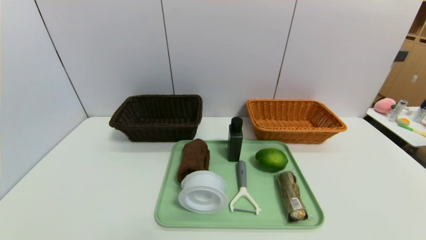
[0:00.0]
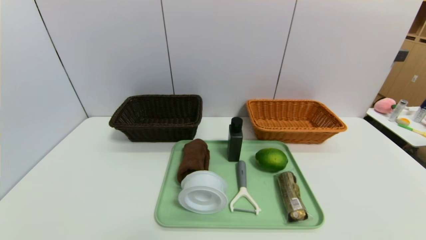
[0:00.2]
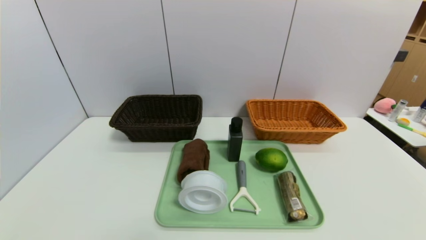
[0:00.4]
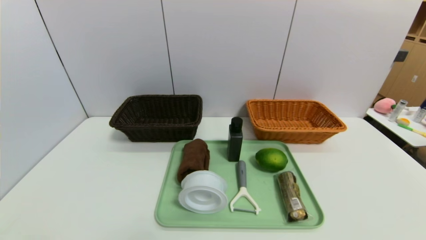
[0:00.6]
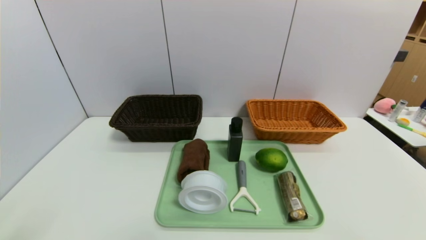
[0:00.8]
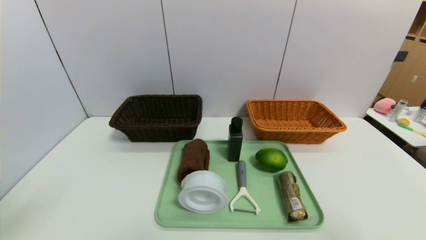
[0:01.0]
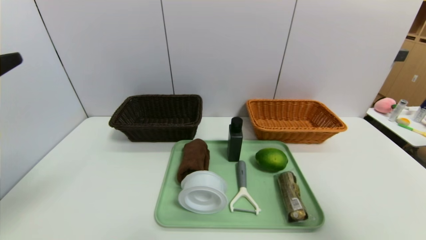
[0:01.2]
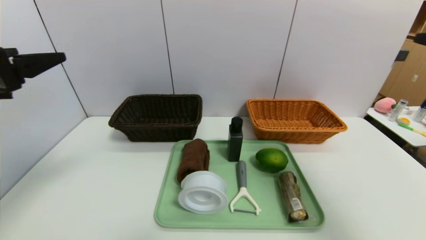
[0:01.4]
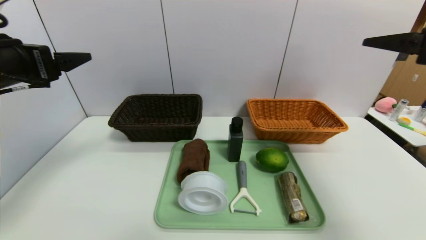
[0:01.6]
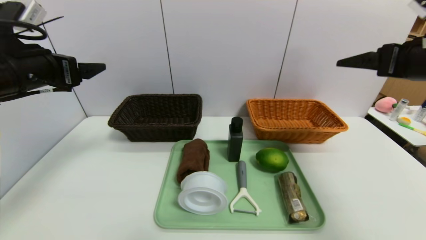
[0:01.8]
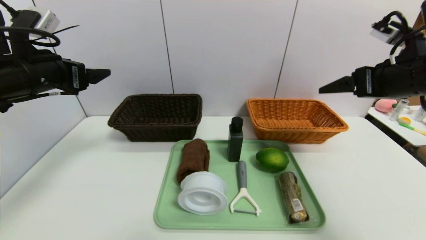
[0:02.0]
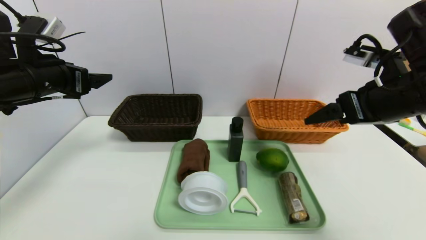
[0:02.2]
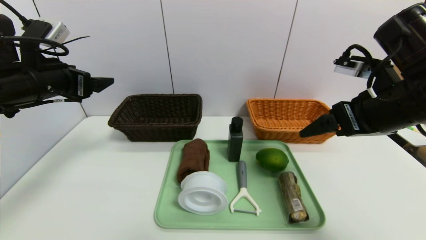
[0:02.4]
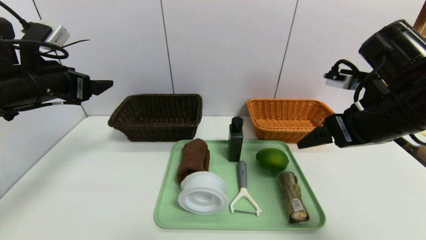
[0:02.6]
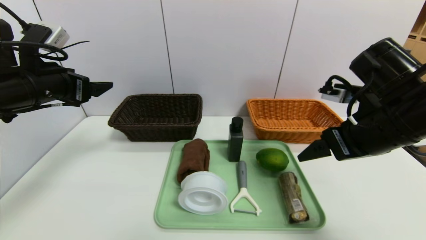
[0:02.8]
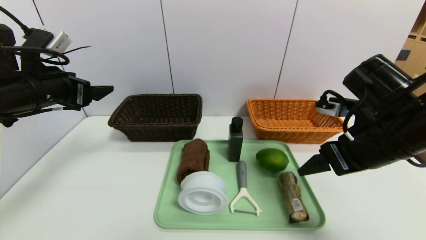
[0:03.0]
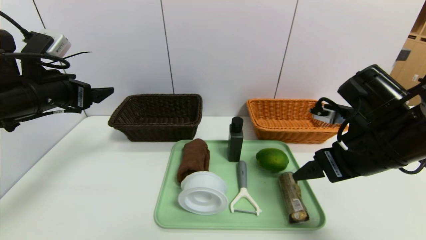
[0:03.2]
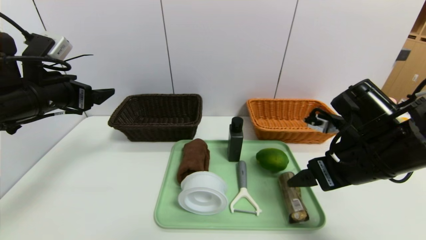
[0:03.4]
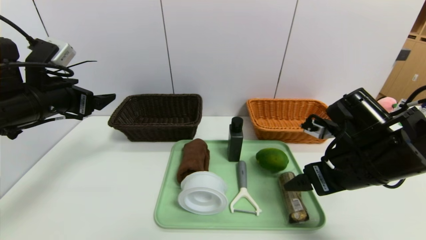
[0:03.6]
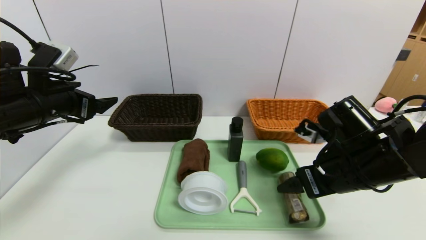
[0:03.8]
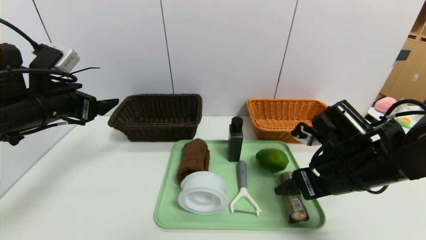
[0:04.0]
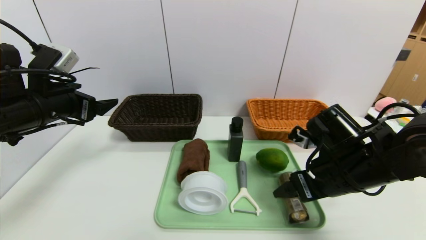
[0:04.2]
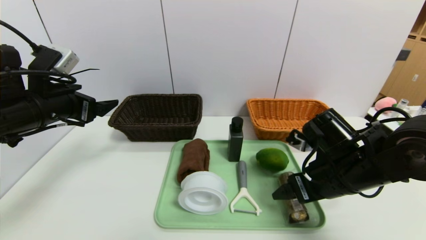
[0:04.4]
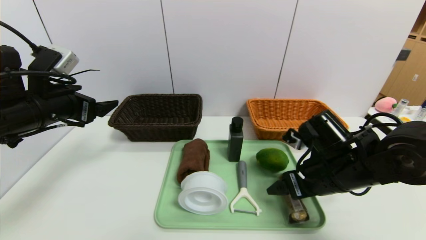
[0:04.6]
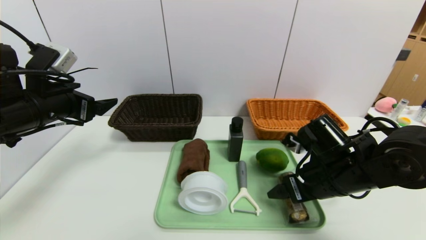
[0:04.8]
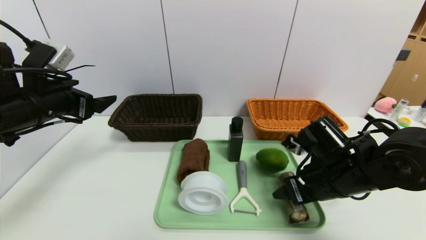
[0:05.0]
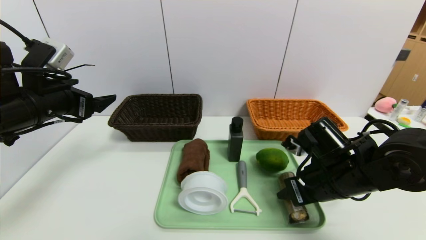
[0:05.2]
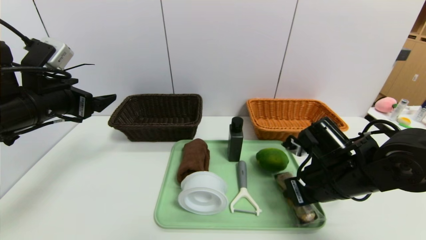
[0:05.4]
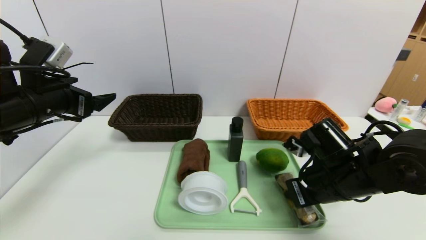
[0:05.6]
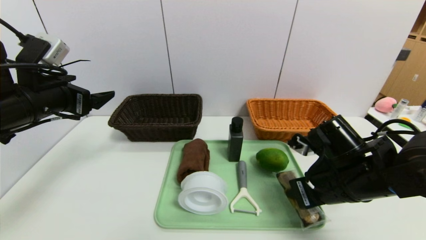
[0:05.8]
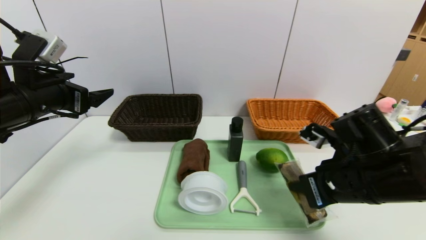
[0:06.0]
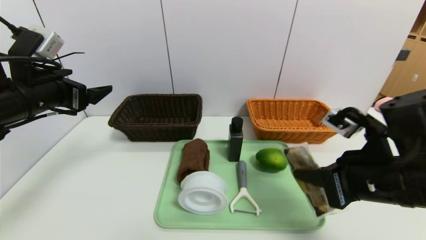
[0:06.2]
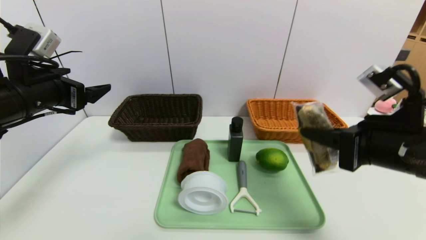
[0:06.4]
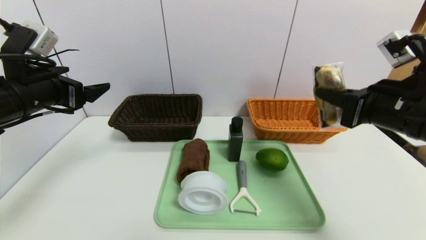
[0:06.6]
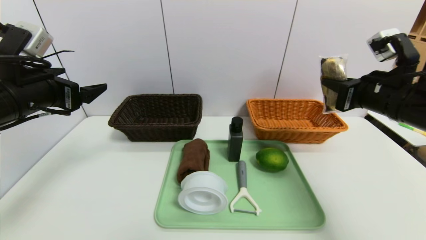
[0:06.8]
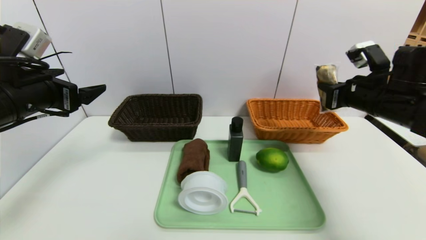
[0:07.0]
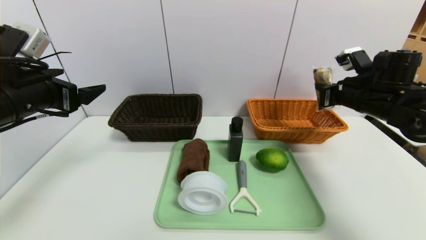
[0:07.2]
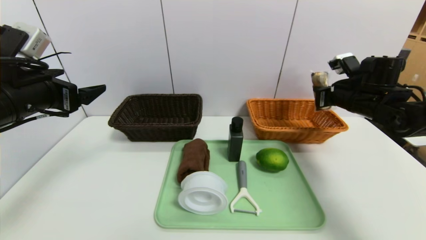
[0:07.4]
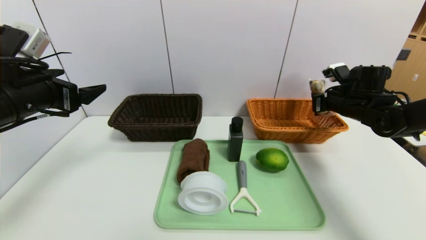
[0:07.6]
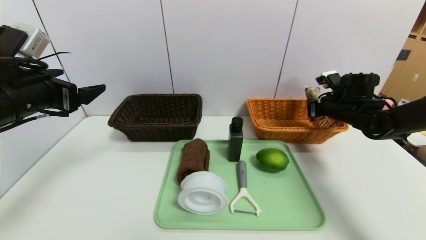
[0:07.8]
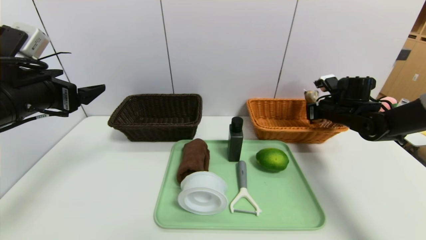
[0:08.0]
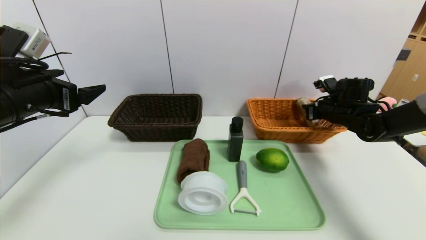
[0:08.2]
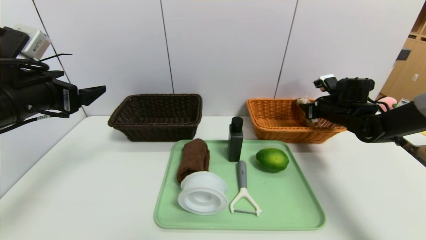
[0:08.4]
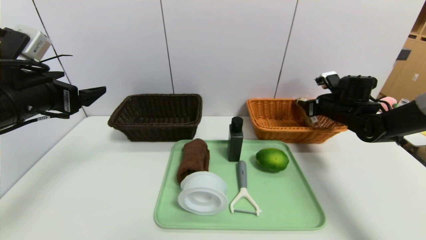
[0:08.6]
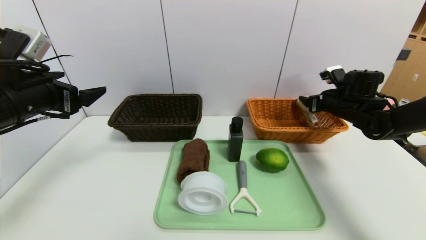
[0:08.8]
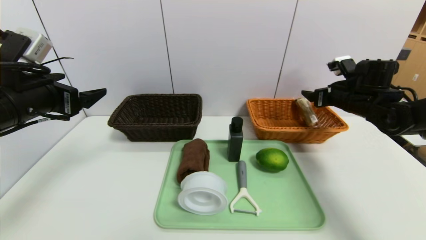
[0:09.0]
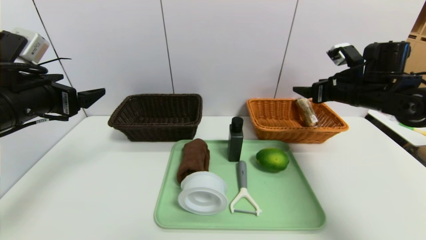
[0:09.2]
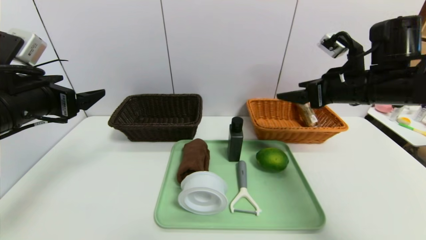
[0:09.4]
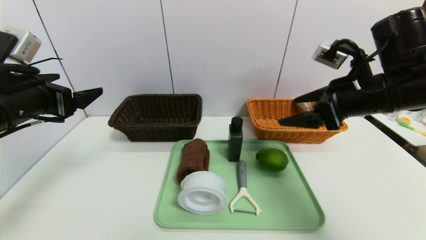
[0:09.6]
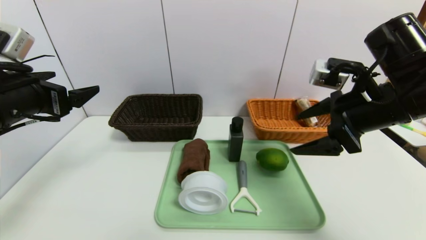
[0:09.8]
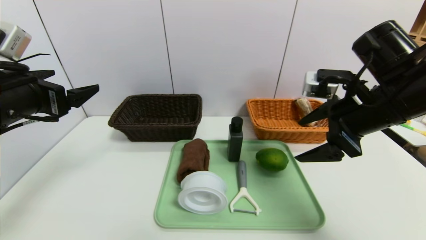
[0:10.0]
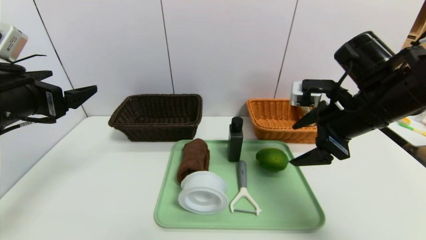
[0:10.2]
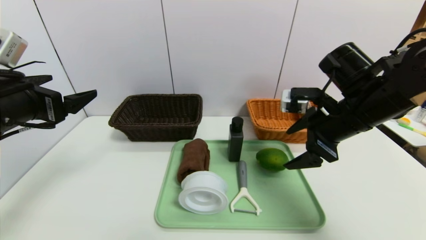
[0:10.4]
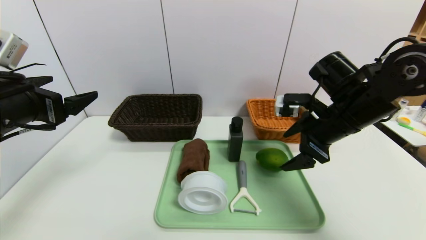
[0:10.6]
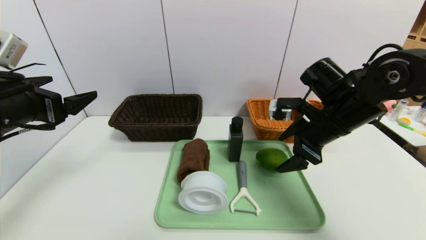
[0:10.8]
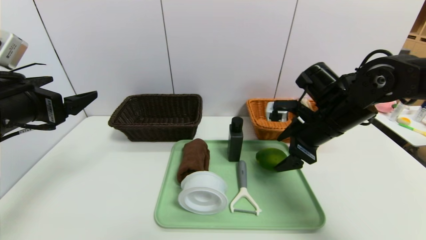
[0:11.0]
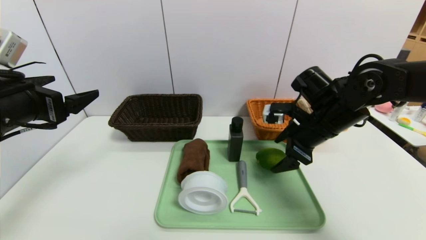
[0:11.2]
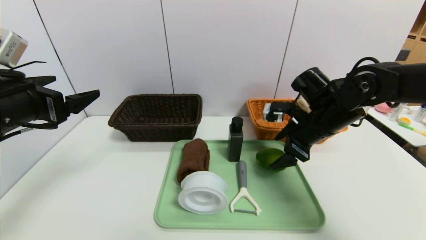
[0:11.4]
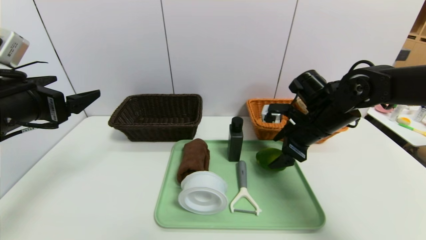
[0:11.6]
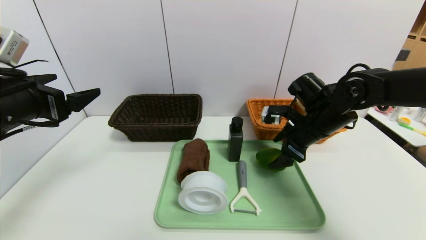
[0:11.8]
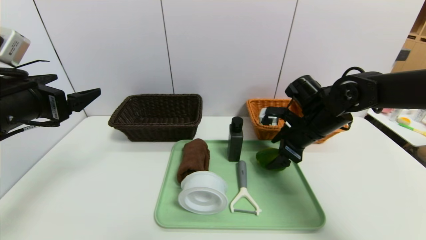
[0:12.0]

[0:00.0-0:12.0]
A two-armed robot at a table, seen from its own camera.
Task of the whole recording: place the food in the right basket with the right gripper, and place the non food items in the left basket with the left gripper.
Step, 0:00.0 to 0:08.2: Grasp the chocolate and put it in the right basket.
0:00.0 to 0:01.6: Both grippers move upward and forward, roughly 35 cm.
0:01.6 to 0:03.0: The right gripper goes roughly 15 cm downward and to the left, while the left gripper travels forward by some 5 cm.
0:03.0 to 0:04.4: The right gripper moves downward, some 10 cm.
0:04.4 to 0:06.0: The right gripper moves some 5 cm, and closes.
0:06.0 to 0:07.6: The right gripper travels forward and to the right by about 25 cm.
0:07.6 to 0:09.0: The right gripper opens.
0:09.0 to 0:10.4: The right gripper travels backward and to the left by approximately 15 cm.
0:10.4 to 0:12.0: The right gripper is displaced downward and forward by roughly 10 cm.

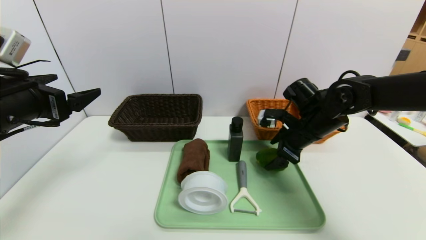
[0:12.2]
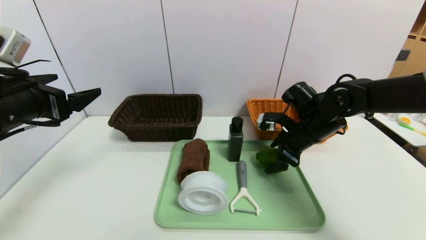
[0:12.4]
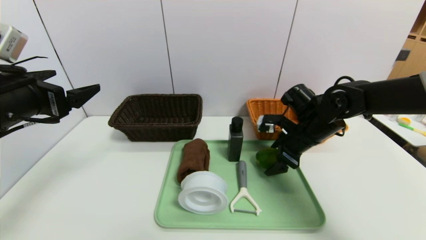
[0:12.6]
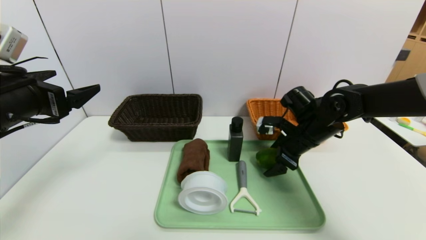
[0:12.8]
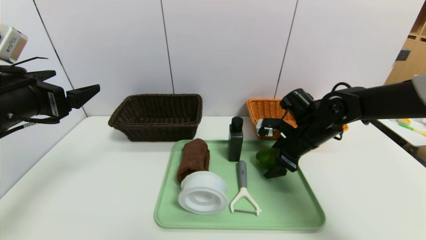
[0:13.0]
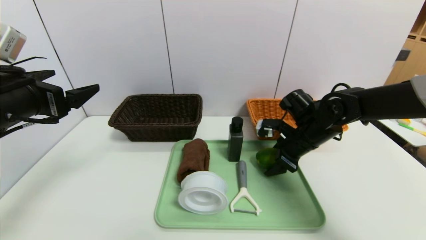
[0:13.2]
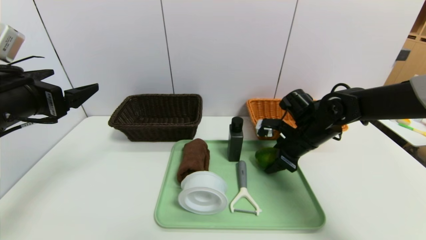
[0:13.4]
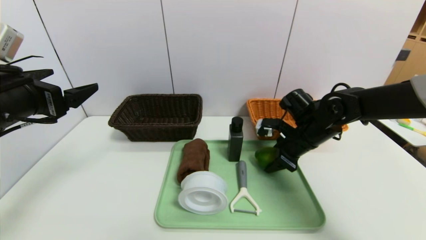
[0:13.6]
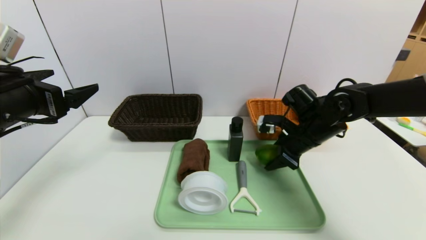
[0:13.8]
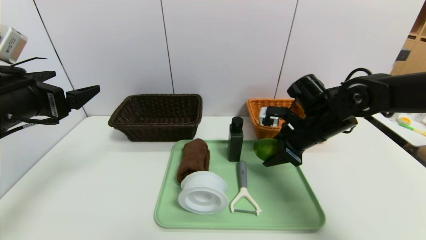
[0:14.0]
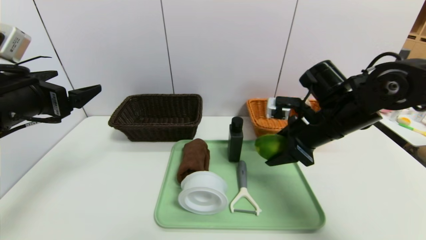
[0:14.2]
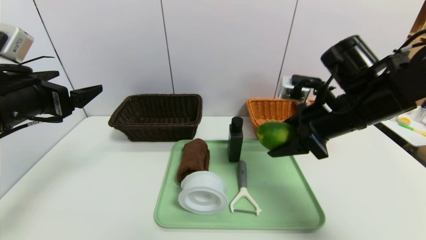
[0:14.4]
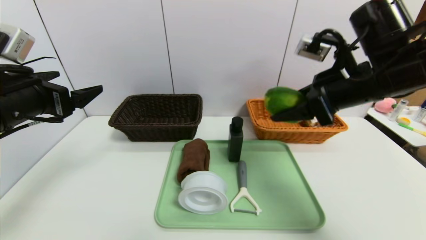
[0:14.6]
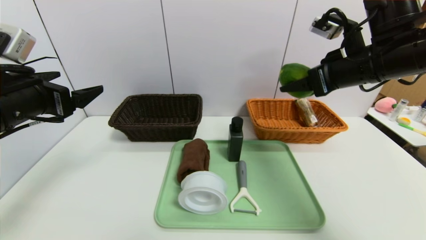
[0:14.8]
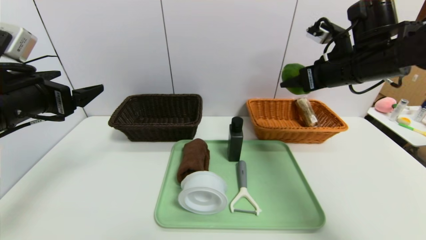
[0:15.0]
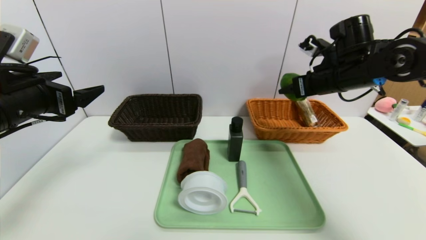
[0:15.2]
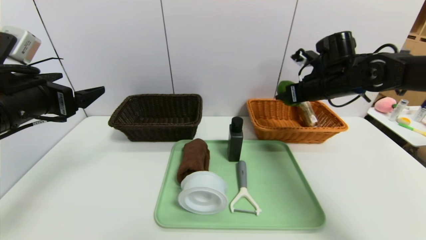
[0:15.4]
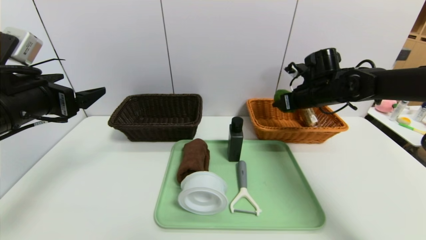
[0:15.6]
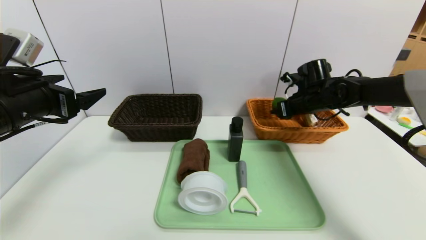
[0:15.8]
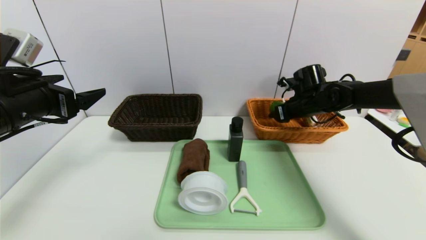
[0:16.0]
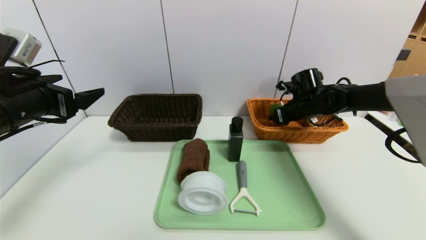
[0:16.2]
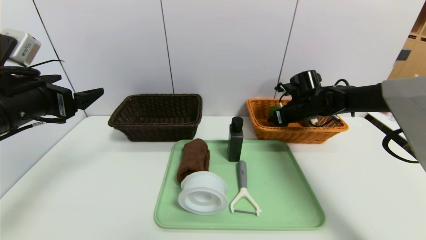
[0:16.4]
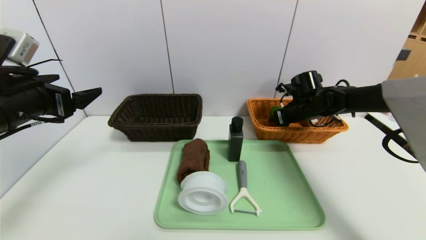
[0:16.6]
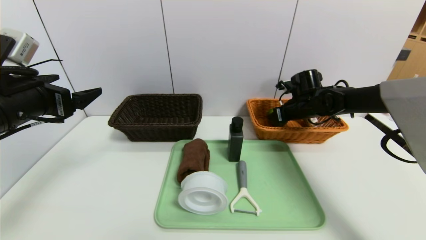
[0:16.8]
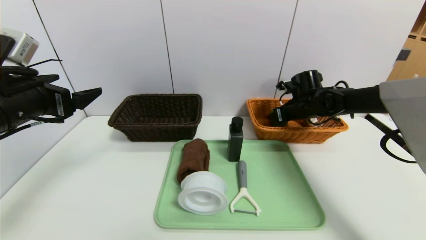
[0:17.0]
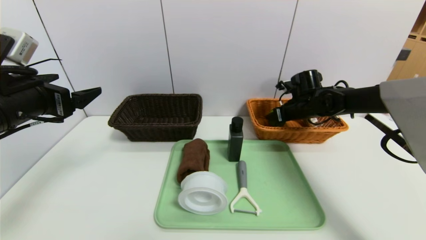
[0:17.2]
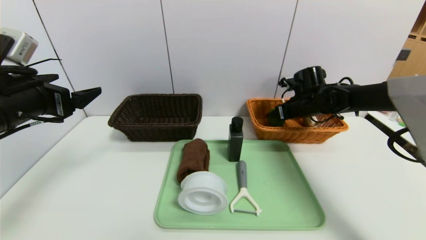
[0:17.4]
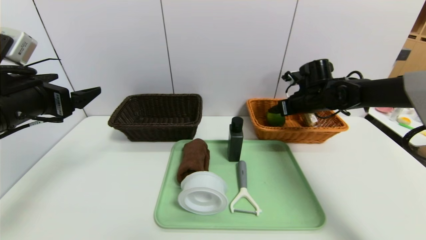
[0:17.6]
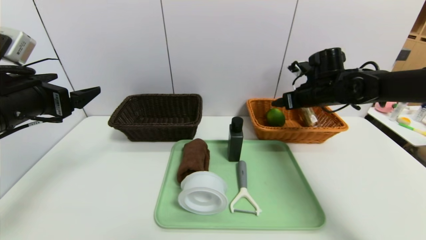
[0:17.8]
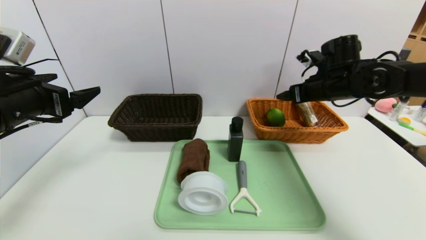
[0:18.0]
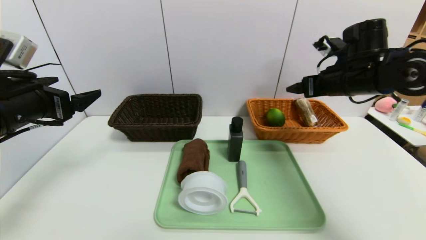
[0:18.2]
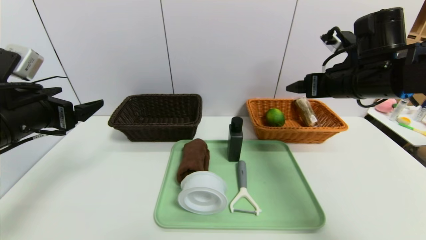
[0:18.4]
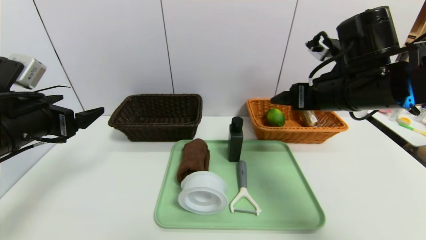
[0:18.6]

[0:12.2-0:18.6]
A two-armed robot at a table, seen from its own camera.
Task of the whole recording: place the food in the right basket with the right gripper, and place the non food items in the left basket with the left gripper.
Step, 0:12.2 to 0:17.2: Grasp the green lemon and put it in the right basket.
0:12.2 to 0:13.8: The right gripper closes up.
0:13.8 to 0:15.4: The right gripper heads upward and forward, covering roughly 10 cm.
0:15.4 to 0:17.0: The right gripper shifts some 10 cm downward and forward.
0:17.0 to 0:18.6: The right gripper moves backward and upward, roughly 25 cm.
